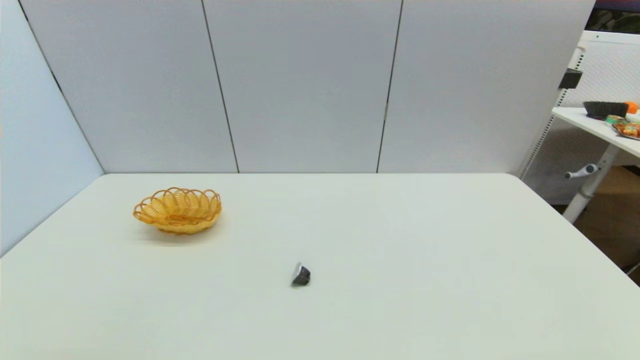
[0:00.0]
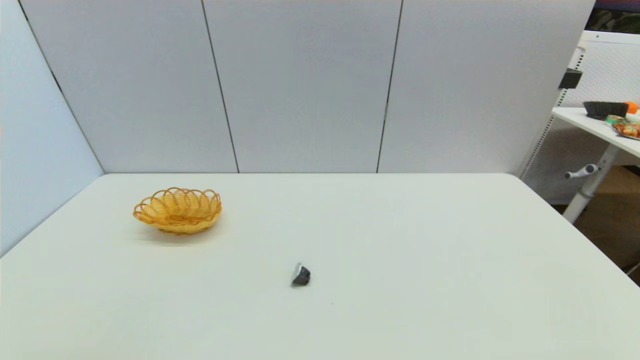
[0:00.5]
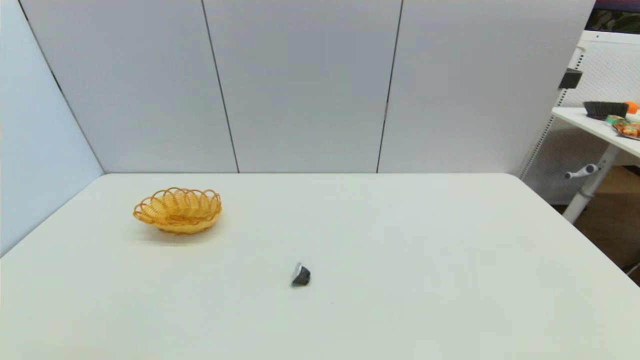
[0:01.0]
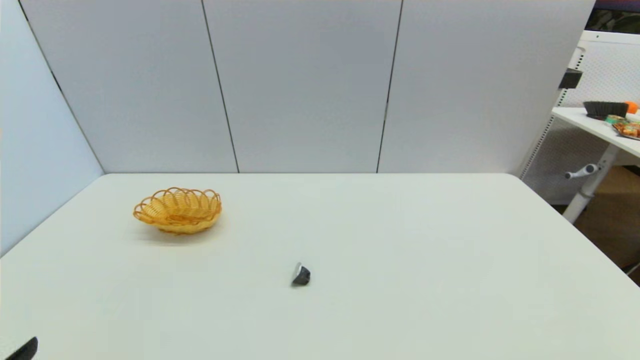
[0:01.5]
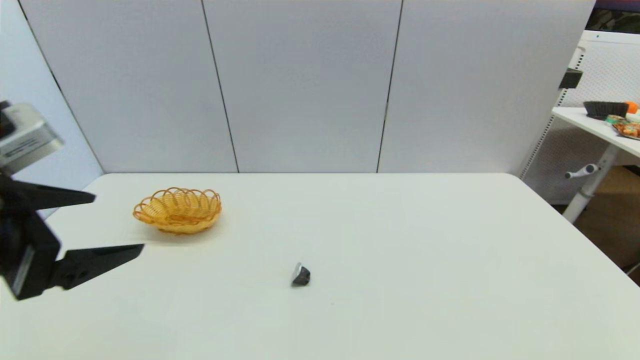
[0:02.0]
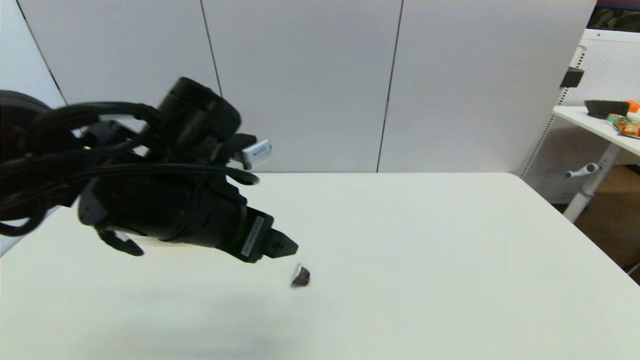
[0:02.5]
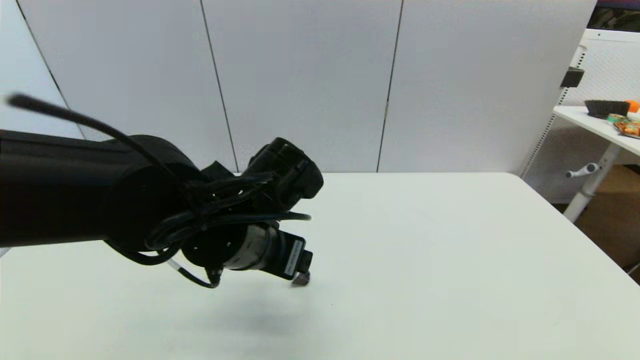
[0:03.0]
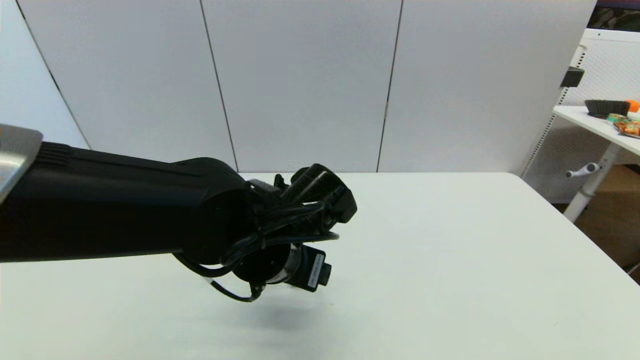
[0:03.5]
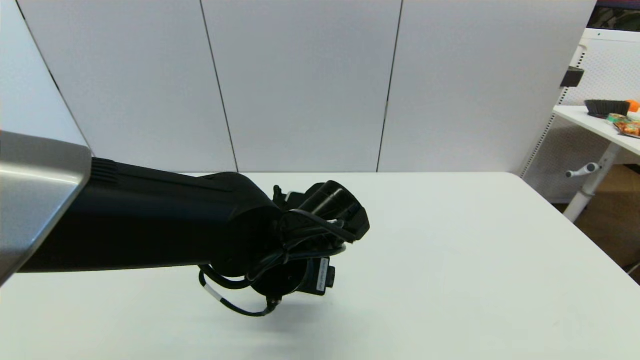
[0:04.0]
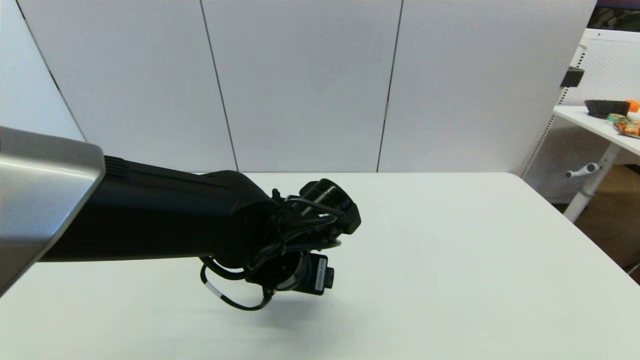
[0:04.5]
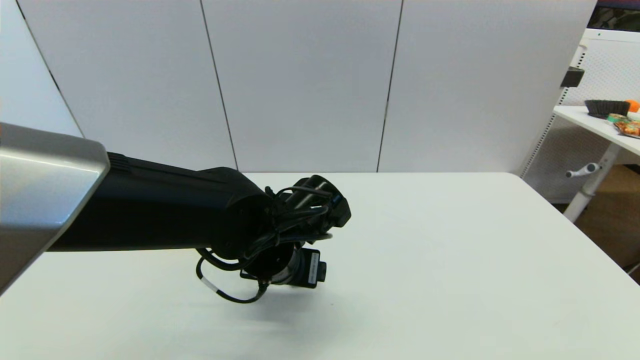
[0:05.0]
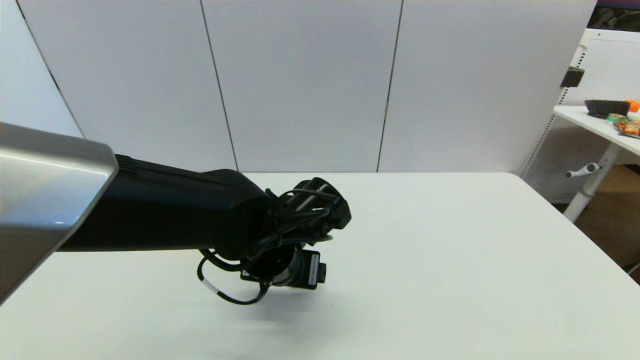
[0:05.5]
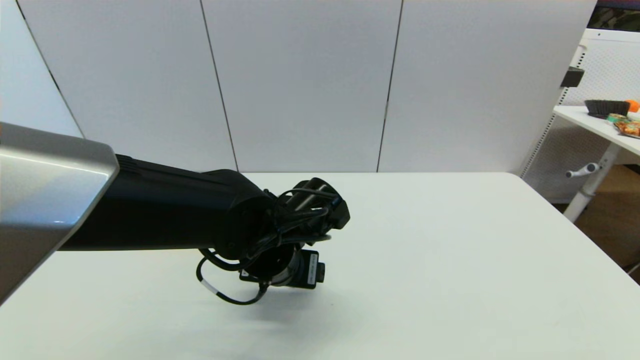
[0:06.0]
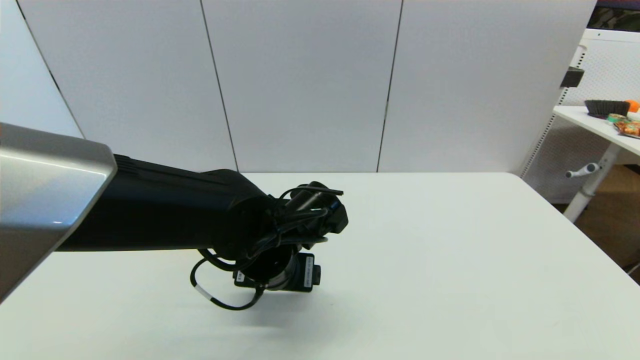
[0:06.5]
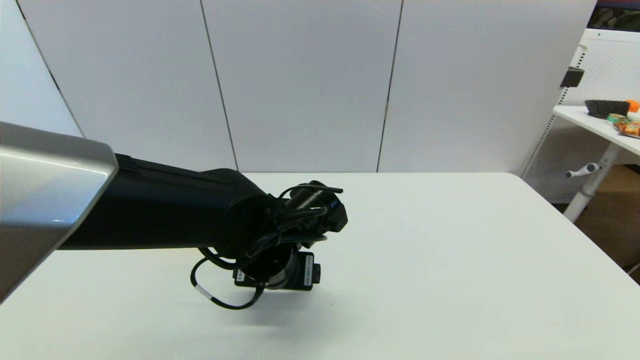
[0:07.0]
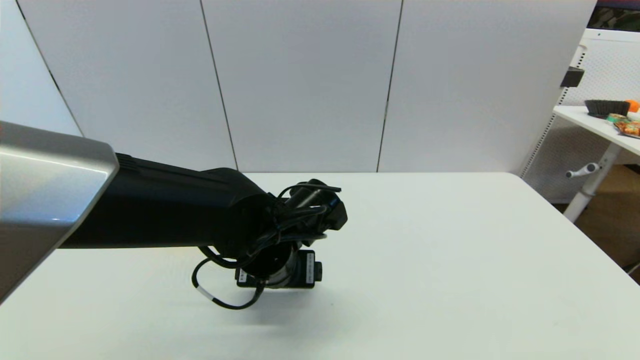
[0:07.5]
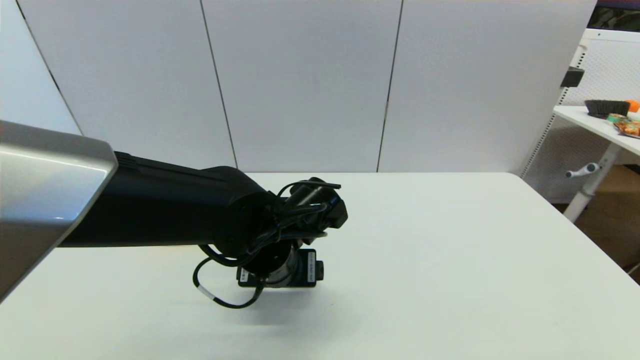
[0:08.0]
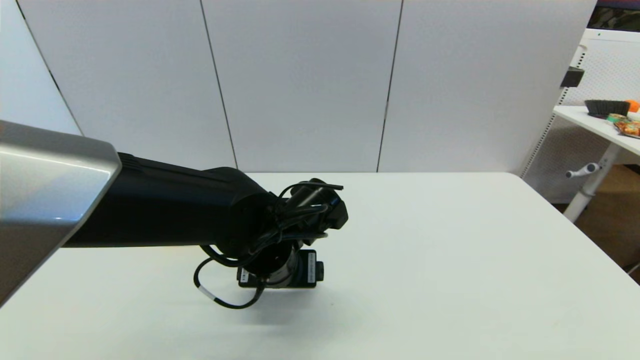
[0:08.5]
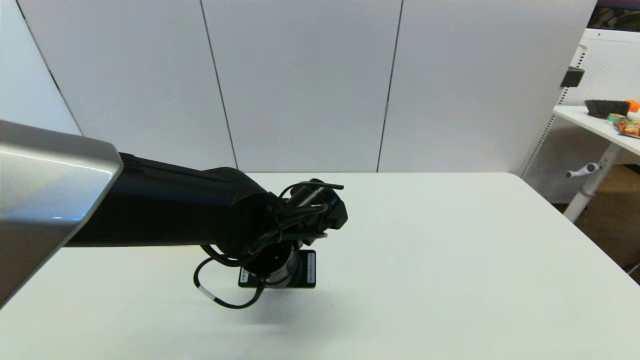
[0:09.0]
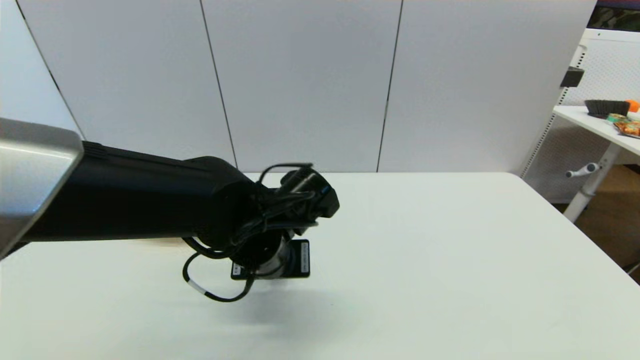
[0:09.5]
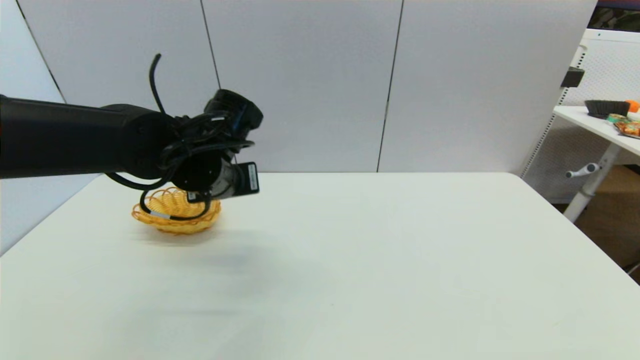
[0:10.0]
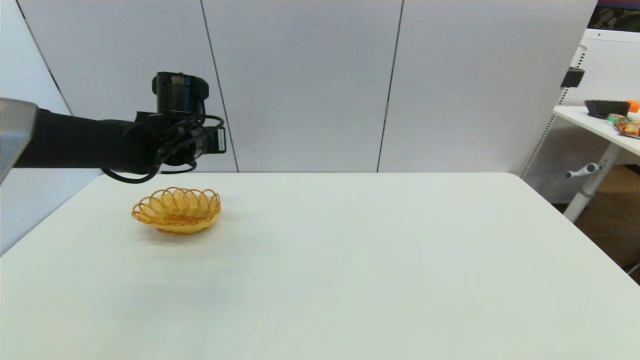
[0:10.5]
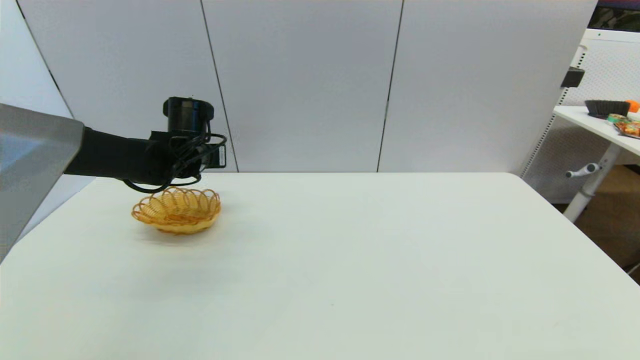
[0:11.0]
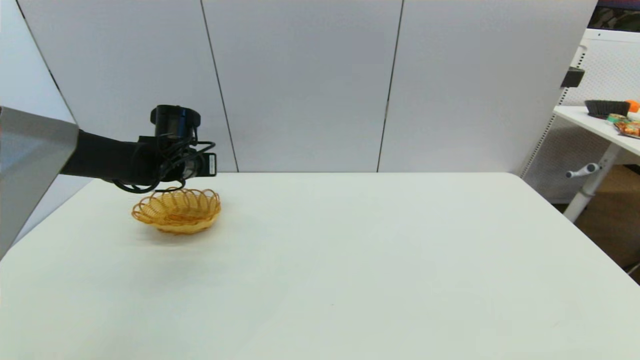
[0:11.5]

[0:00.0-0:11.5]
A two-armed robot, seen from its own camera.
Step, 0:01.5 to 0:09.0: Grasp the coffee capsule with left gripper.
0:00.0 to 0:02.0: The left gripper goes roughly 25 cm upward and forward.
0:02.0 to 0:04.0: The left gripper shifts roughly 25 cm to the right and downward.
0:04.0 to 0:07.5: There are only small adjustments of the grippers.
0:07.5 to 0:09.5: The left gripper closes its fingers.
0:09.5 to 0:11.5: The left gripper shifts about 25 cm forward and to the left.

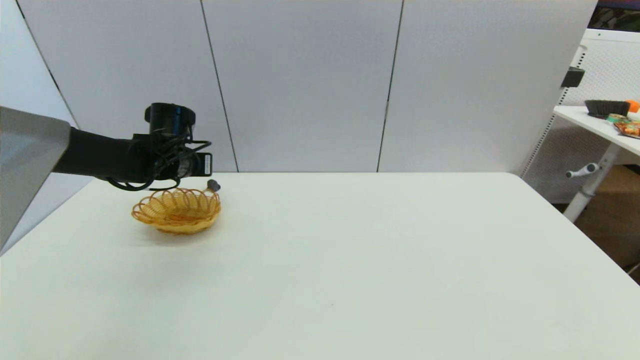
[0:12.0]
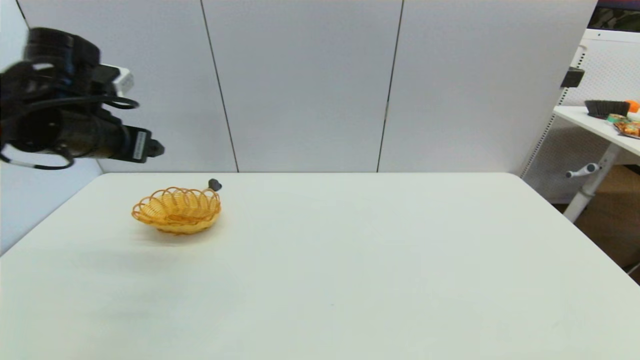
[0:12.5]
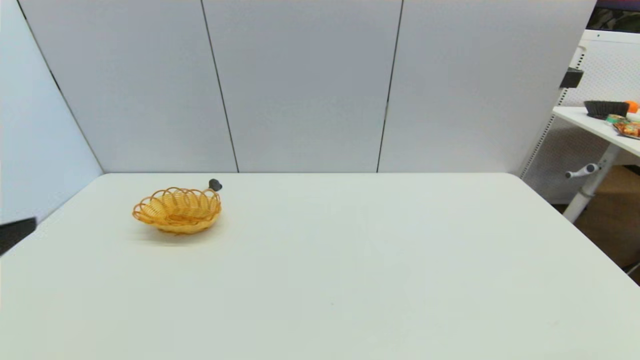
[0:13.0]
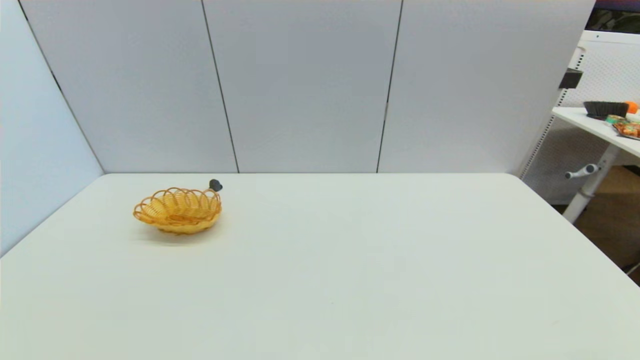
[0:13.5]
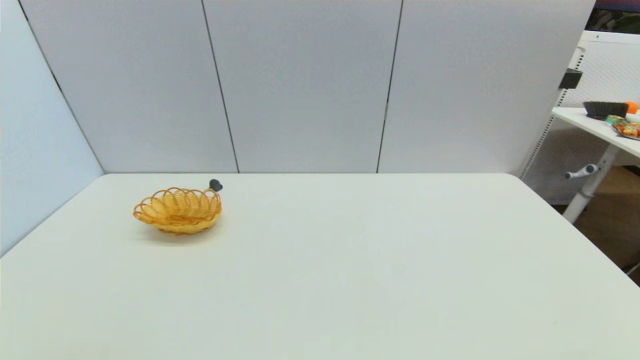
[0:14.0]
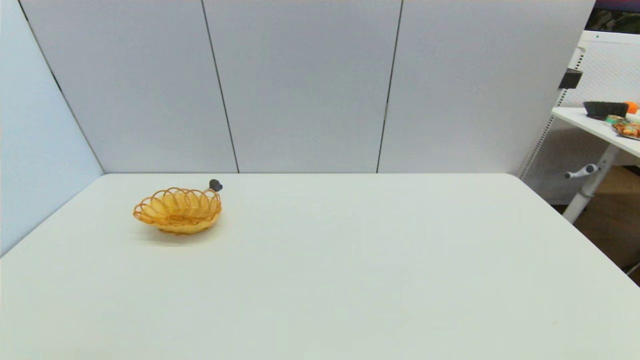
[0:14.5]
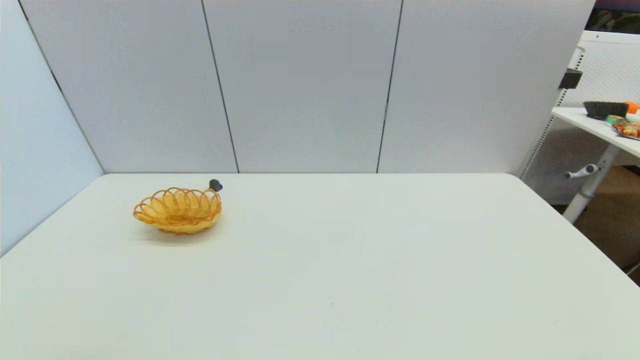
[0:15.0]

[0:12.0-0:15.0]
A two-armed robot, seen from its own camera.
0:12.0 to 0:13.5: The left gripper goes some 50 cm backward, and opens.

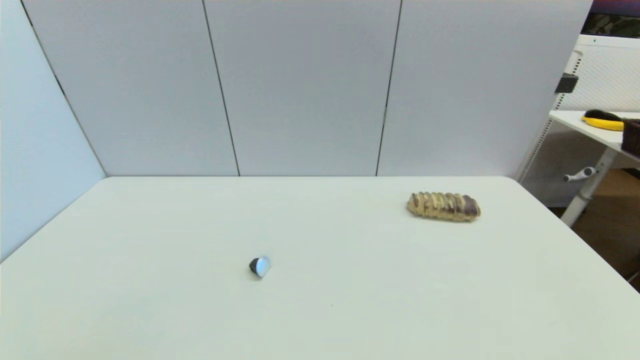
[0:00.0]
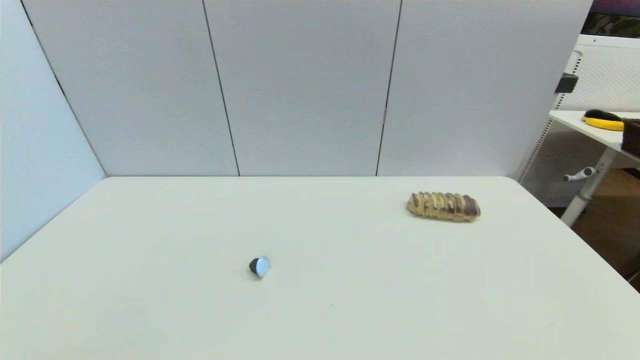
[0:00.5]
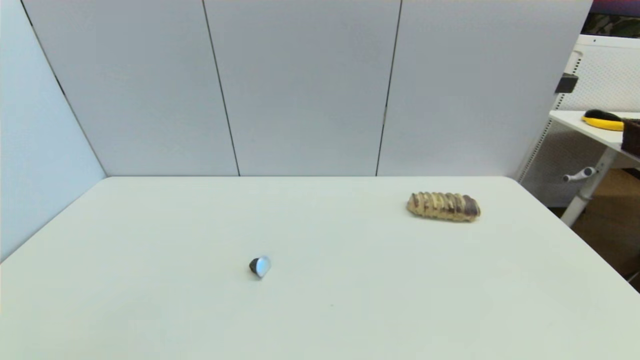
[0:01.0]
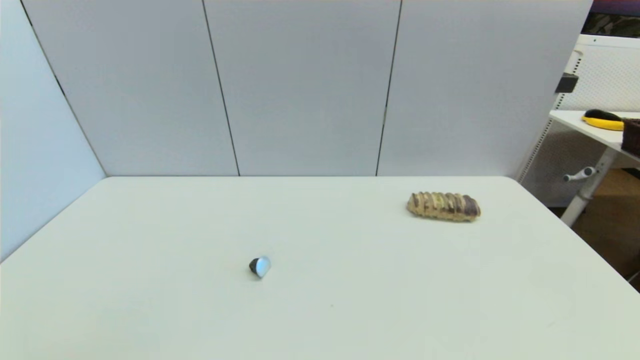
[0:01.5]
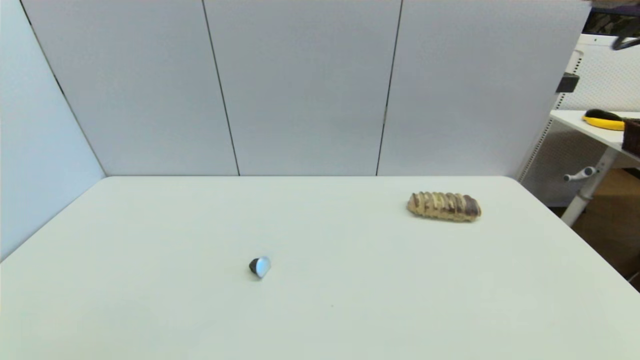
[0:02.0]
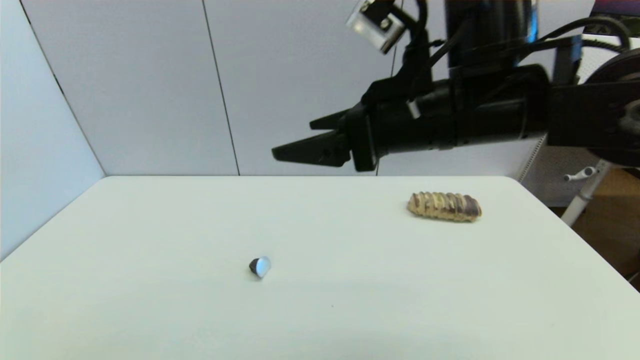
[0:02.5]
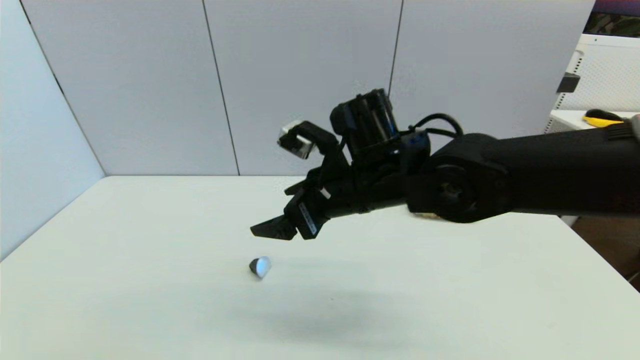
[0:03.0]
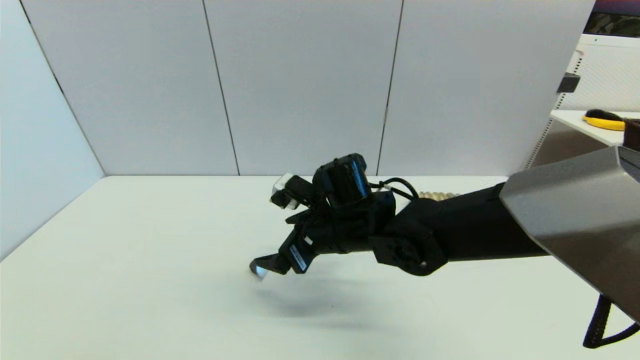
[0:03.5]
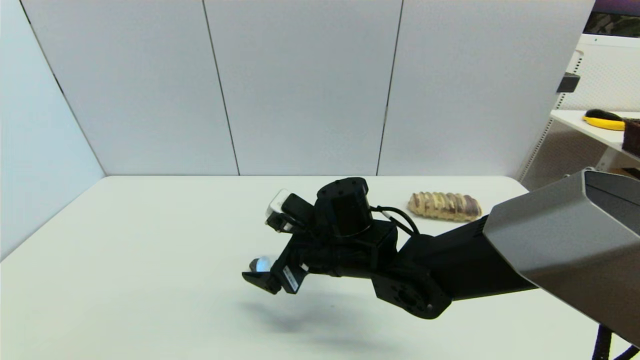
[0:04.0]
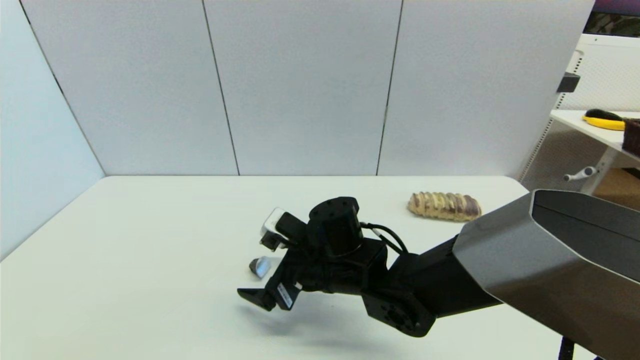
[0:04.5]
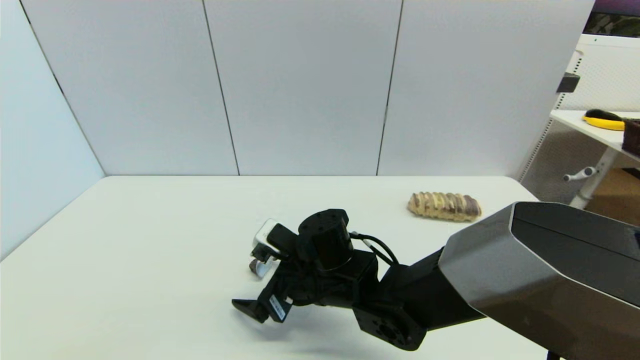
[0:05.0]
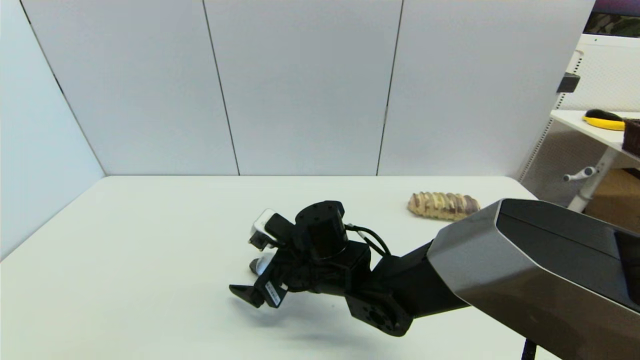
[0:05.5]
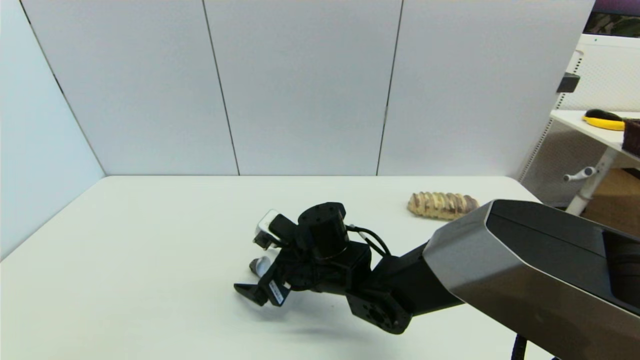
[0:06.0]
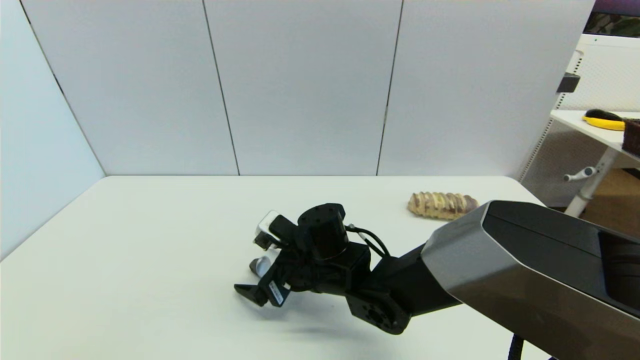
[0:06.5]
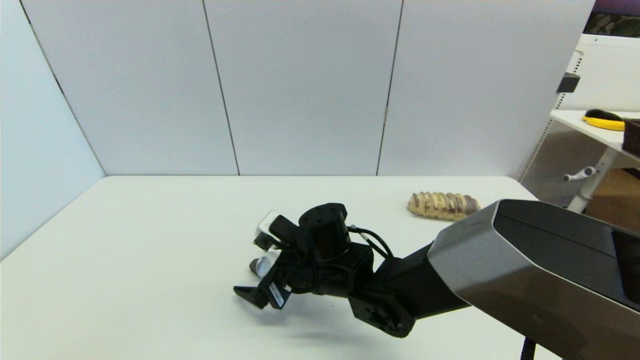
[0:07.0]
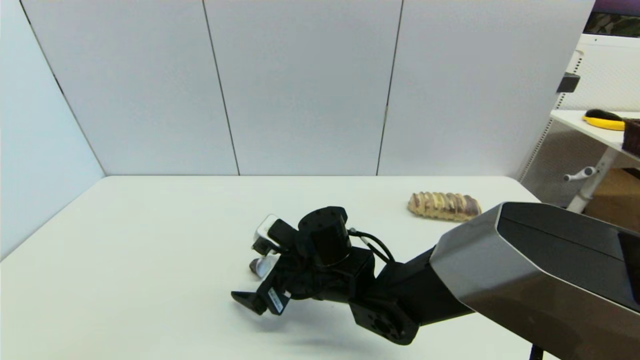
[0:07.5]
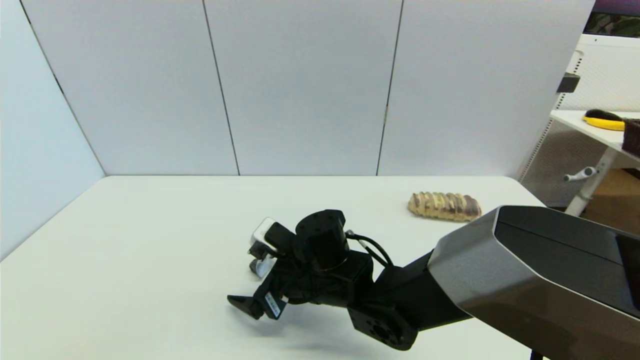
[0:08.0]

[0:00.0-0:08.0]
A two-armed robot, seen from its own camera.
0:02.0 to 0:04.0: The right gripper travels downward and to the left by approximately 35 cm.
0:04.0 to 0:06.0: The right gripper moves roughly 5 cm.
0:06.0 to 0:08.0: There are only small adjustments of the grippers.
